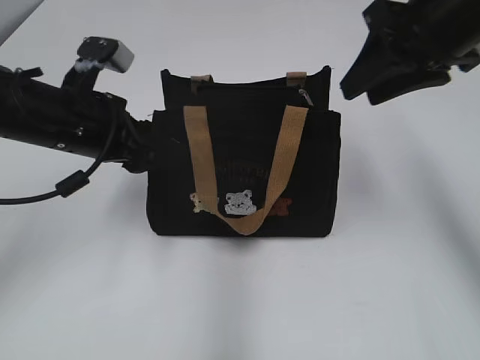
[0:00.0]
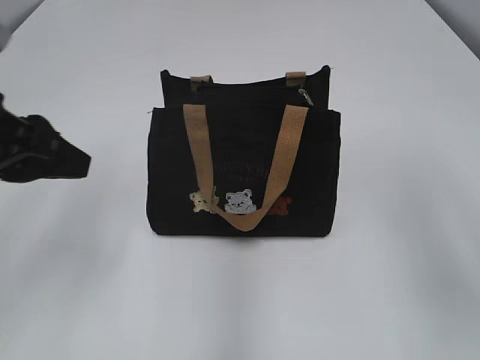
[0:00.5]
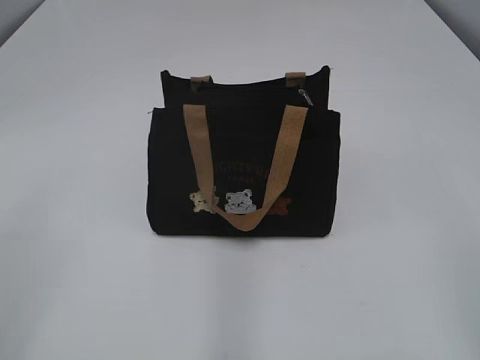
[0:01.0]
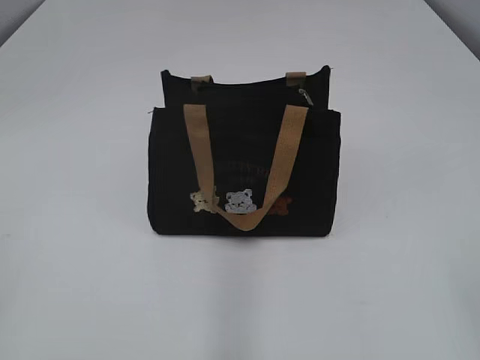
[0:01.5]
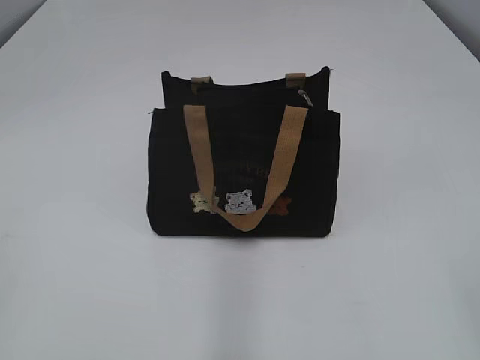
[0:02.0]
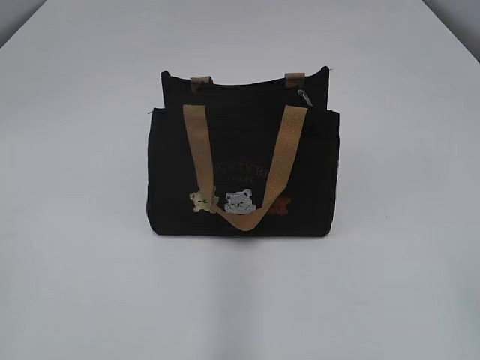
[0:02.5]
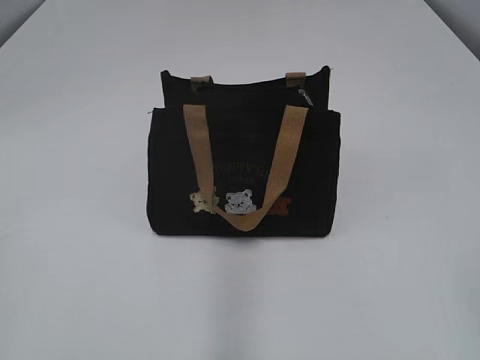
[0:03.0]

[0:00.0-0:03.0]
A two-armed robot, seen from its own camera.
0:00.0 to 0:01.5: The right gripper shifts roughly 35 cm backward, while the left gripper shifts approximately 35 cm backward and to the left.
